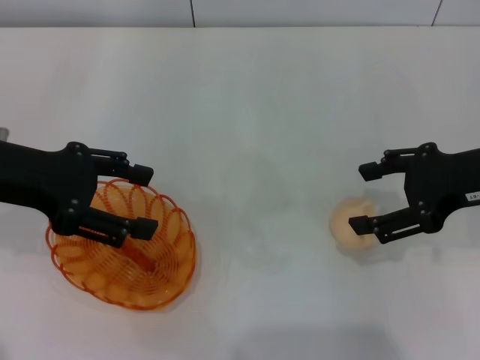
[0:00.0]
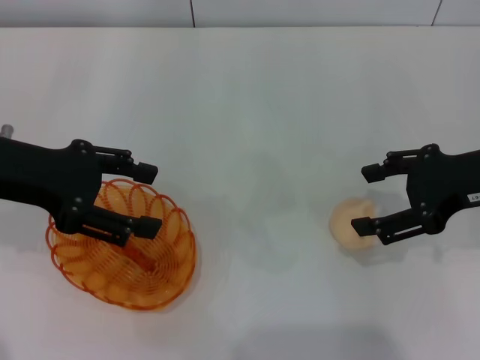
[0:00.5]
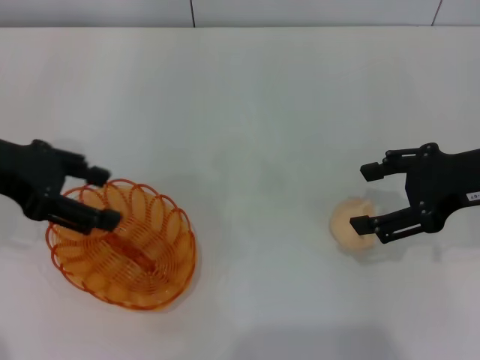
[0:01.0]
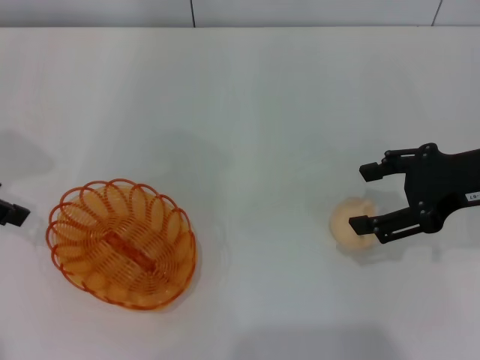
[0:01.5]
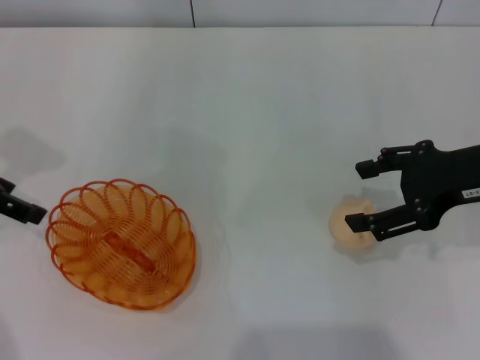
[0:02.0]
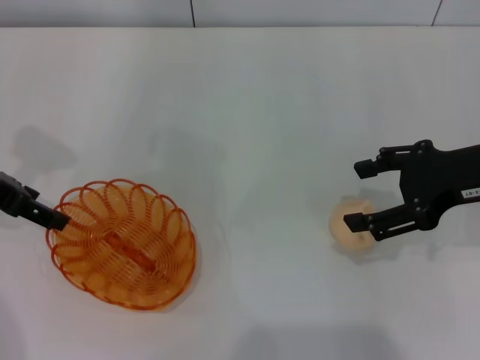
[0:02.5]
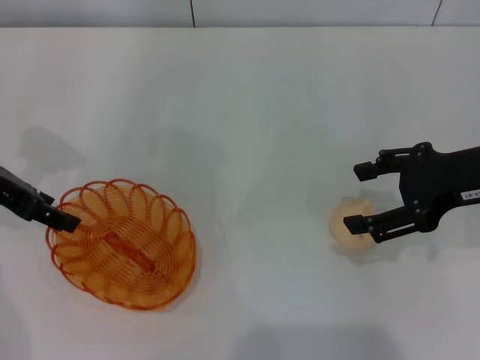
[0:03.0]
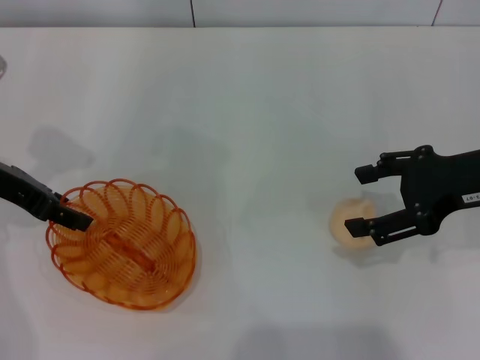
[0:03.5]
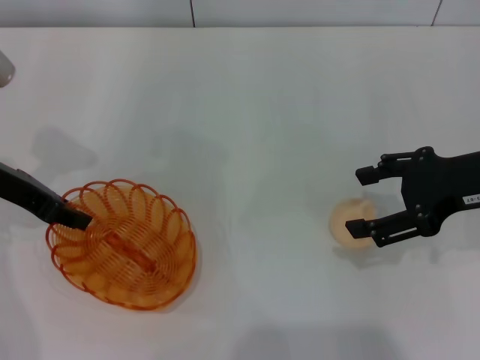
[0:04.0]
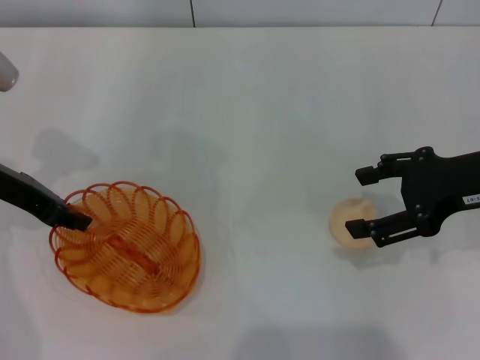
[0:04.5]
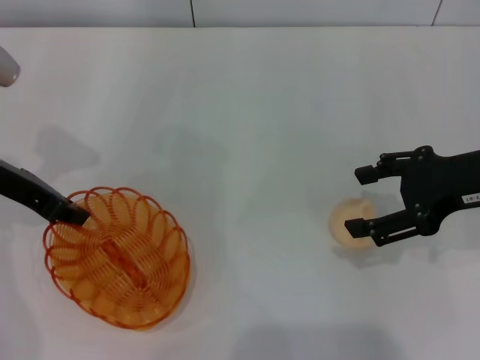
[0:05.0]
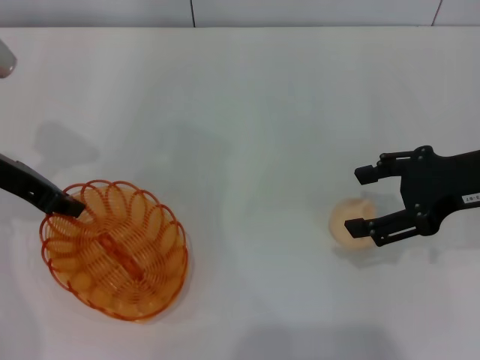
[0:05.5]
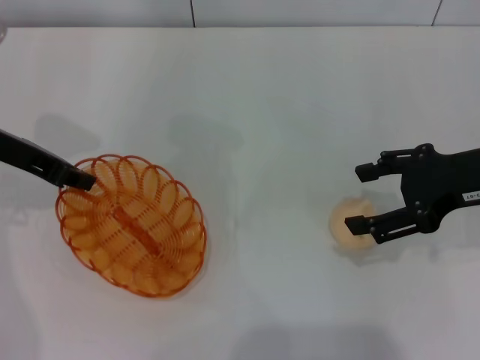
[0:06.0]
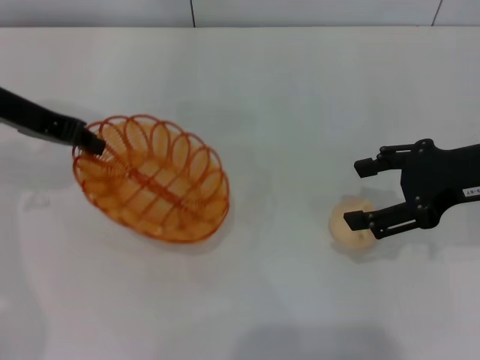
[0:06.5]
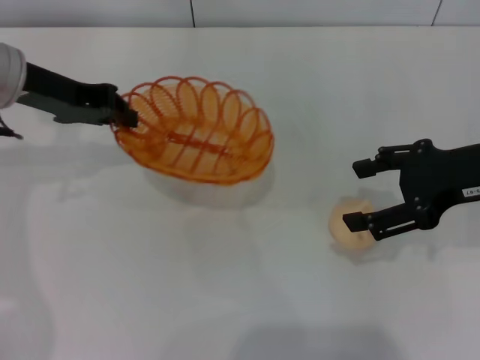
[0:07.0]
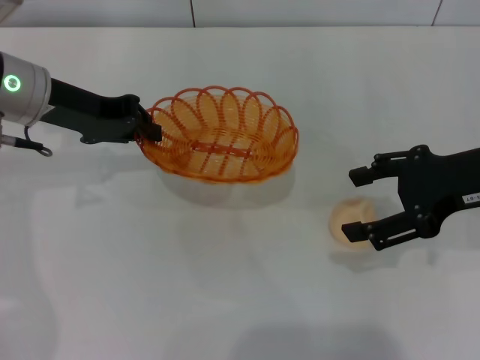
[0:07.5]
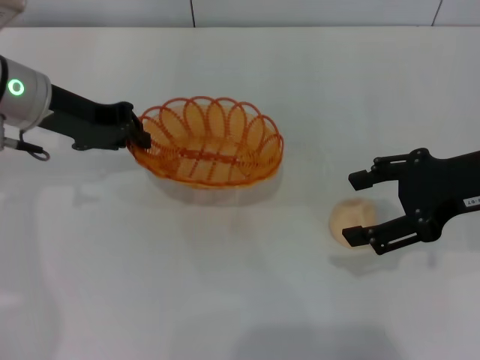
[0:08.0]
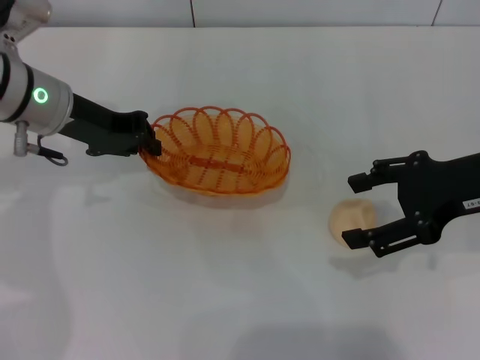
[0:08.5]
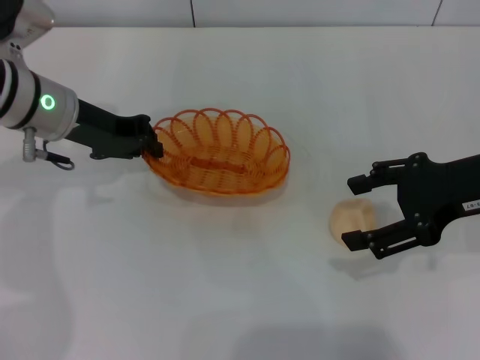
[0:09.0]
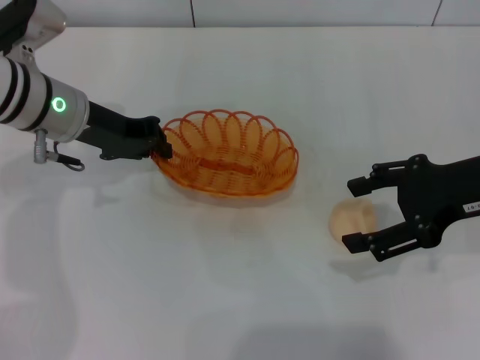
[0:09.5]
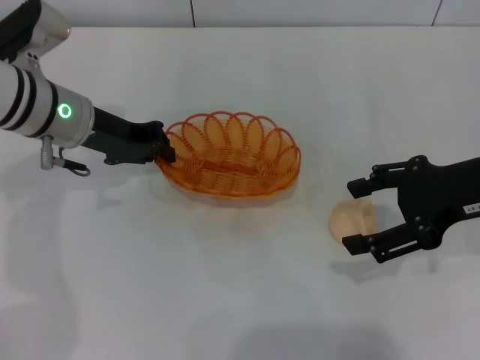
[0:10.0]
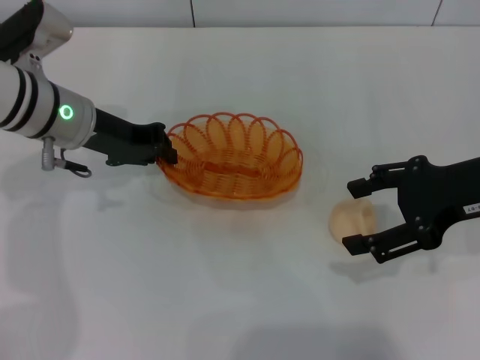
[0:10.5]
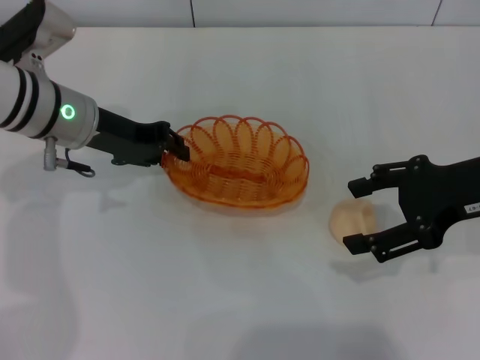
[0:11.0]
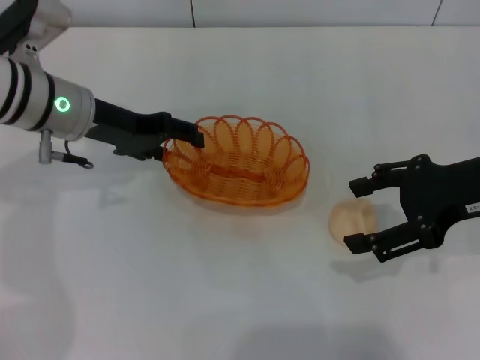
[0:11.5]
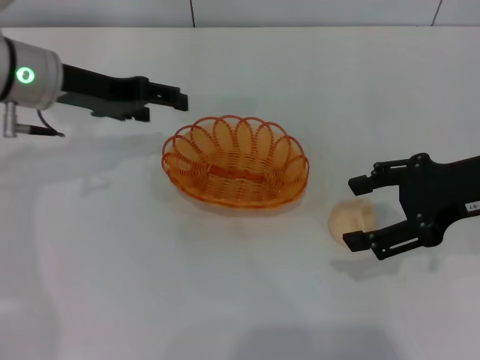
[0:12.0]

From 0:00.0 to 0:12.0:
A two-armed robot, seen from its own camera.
Step, from 0:00.0 to 0:06.5: Pick up the basket with the left gripper.
Step, from 0:07.0 to 0:11.5: Place the basket in the center of view with the left gripper.
From 0:00.0 to 0:02.0: The left gripper heads to the left, covering roughly 5 cm.
From 0:02.0 to 0:04.0: The left gripper changes place by some 5 cm, and closes.
From 0:04.0 to 0:06.0: The left gripper closes its fingers.
From 0:06.0 to 0:08.0: The left gripper ends up some 5 cm from where it was.
From 0:08.0 to 0:10.0: The grippers stay close to where they were, moving slightly.
From 0:10.0 to 0:12.0: The left gripper opens.

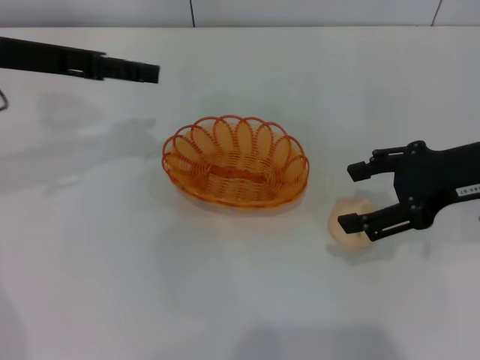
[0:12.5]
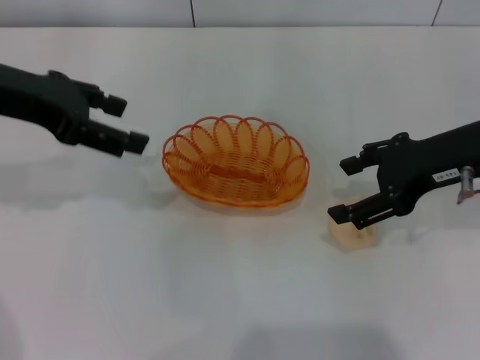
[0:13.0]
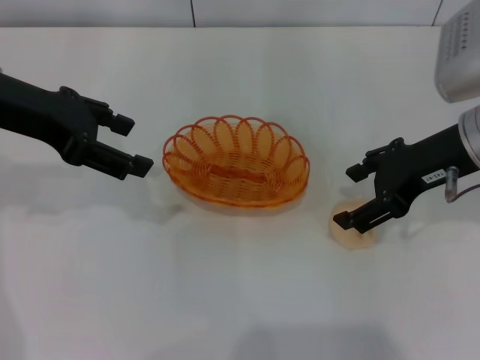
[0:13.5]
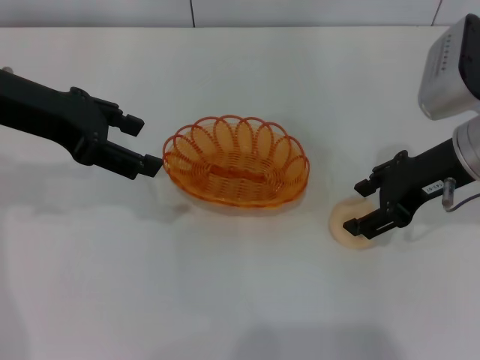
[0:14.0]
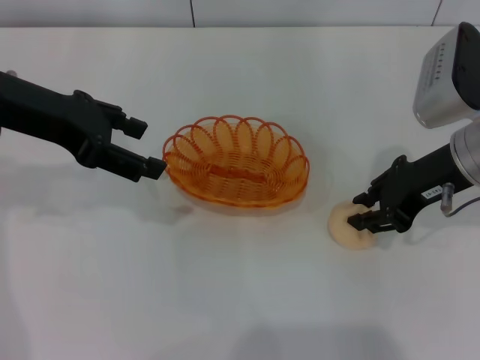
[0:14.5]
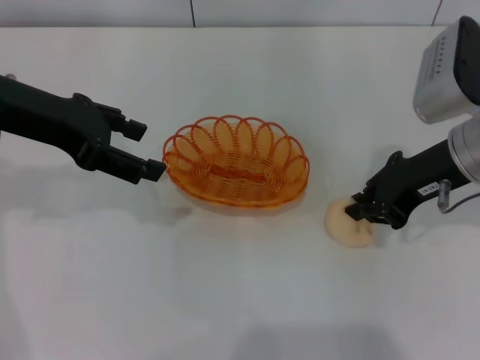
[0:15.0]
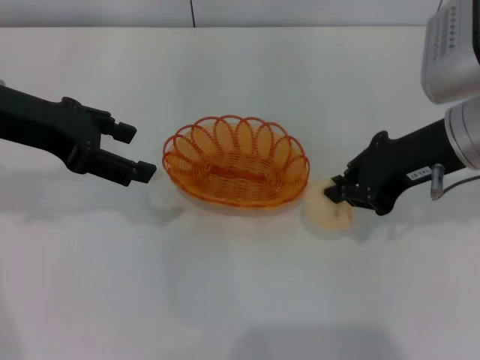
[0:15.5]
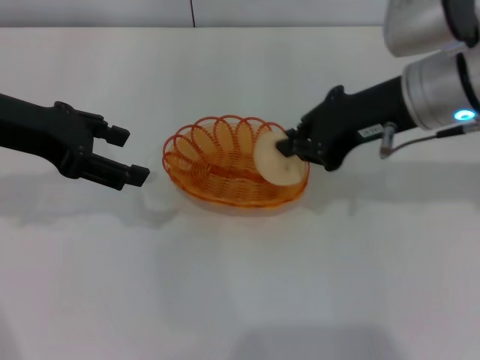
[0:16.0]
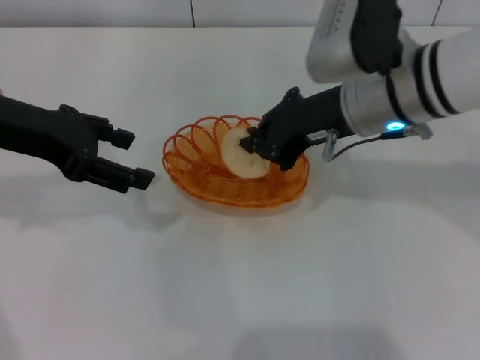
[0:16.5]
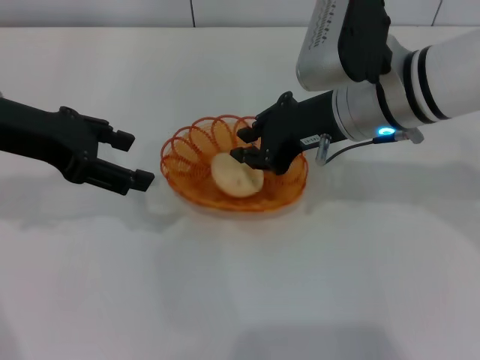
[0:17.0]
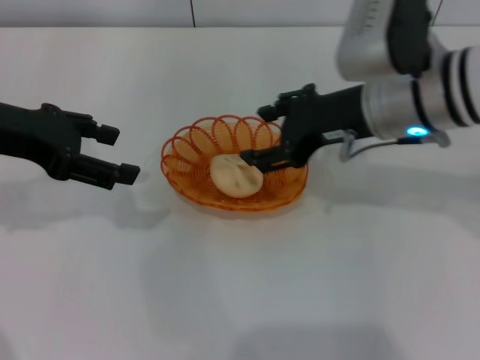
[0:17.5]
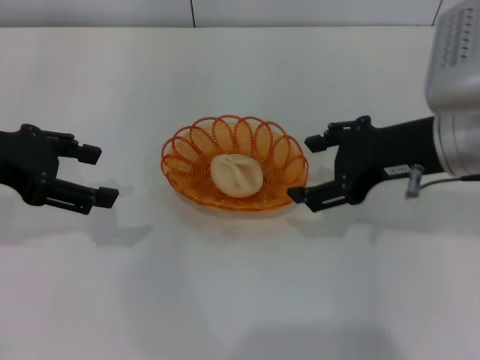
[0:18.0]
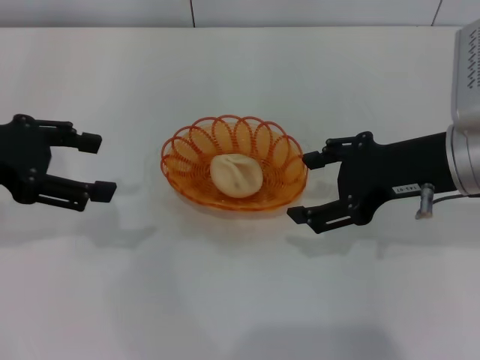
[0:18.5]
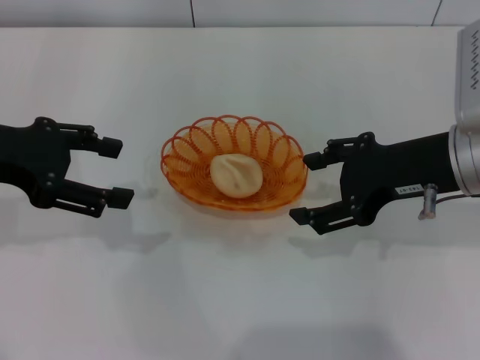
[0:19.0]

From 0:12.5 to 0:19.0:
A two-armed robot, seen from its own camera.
Step, from 0:12.5 to 0:15.5: Pick up the egg yolk pastry with the right gripper.
Step, from 0:16.0 to 0:17.5: Place the egg yolk pastry into the basket with the right gripper.
From 0:12.5 to 0:14.5: The right gripper changes place by about 5 cm, and closes its fingers.
From 0:14.5 to 0:17.0: The right gripper travels to the left by about 10 cm.
From 0:17.0 to 0:19.0: The right gripper shifts roughly 10 cm to the right and backward, and opens.

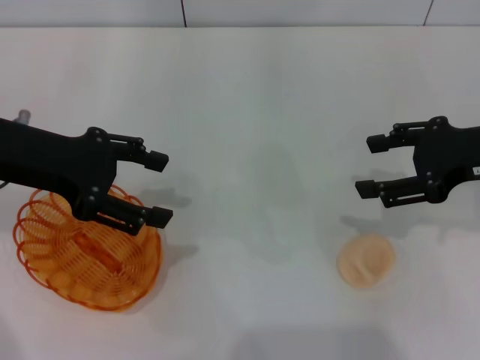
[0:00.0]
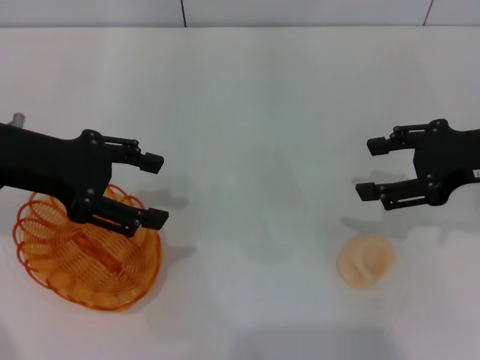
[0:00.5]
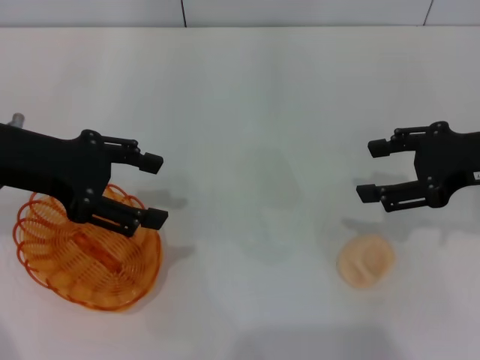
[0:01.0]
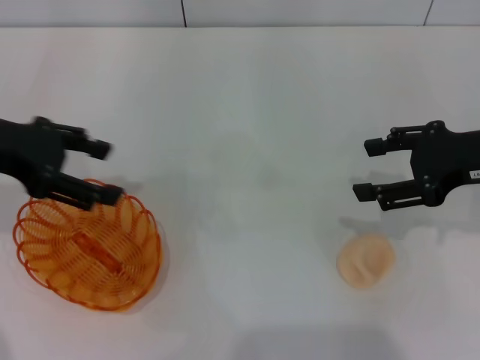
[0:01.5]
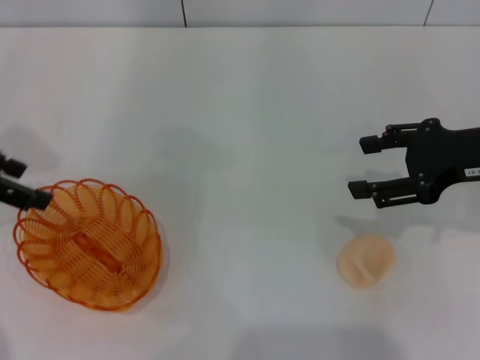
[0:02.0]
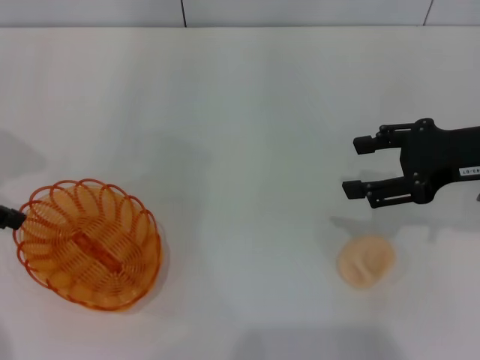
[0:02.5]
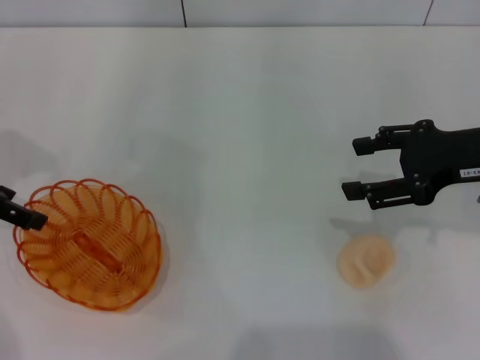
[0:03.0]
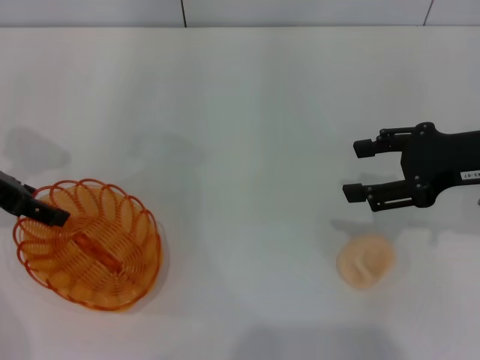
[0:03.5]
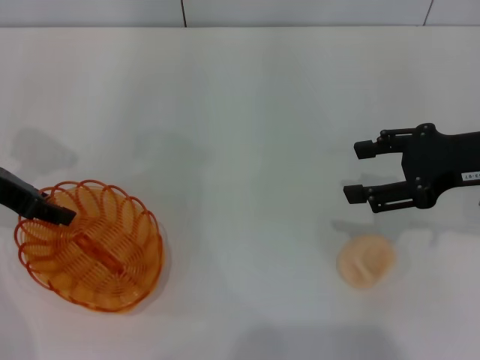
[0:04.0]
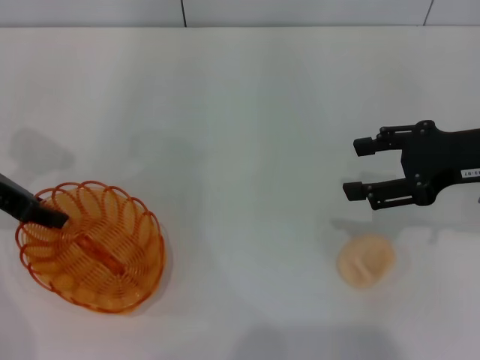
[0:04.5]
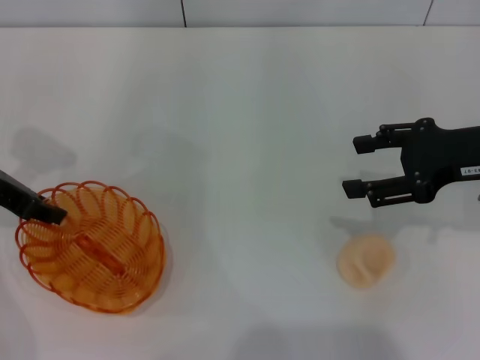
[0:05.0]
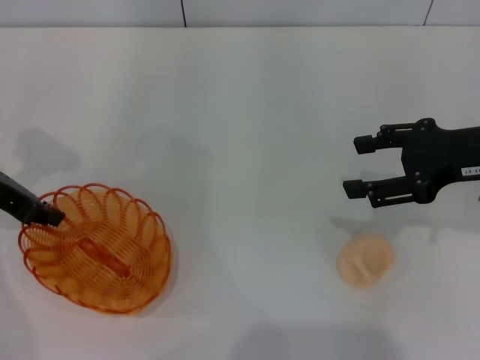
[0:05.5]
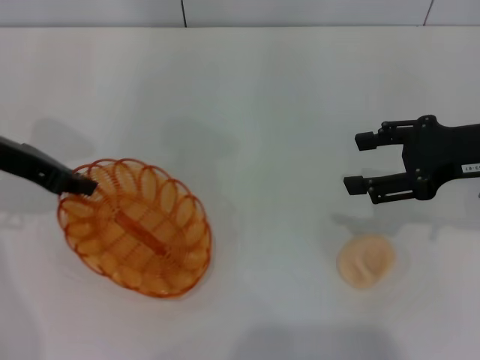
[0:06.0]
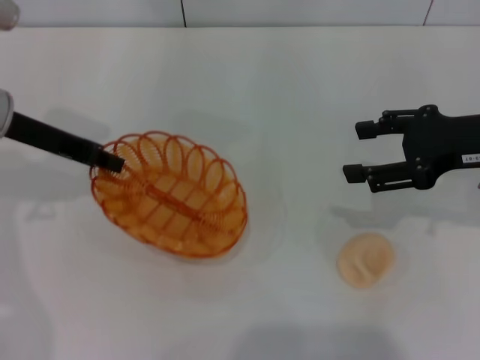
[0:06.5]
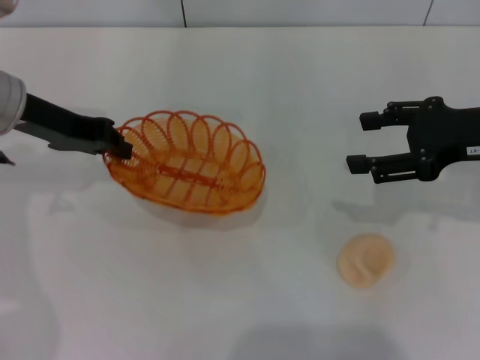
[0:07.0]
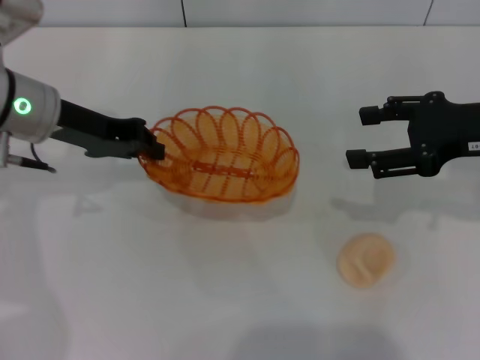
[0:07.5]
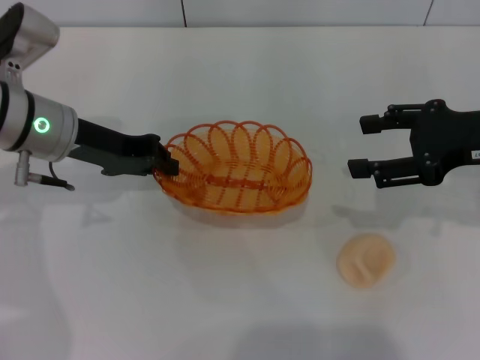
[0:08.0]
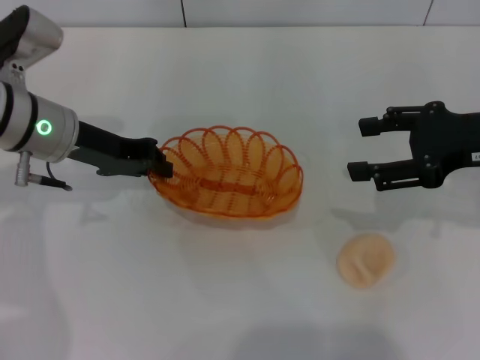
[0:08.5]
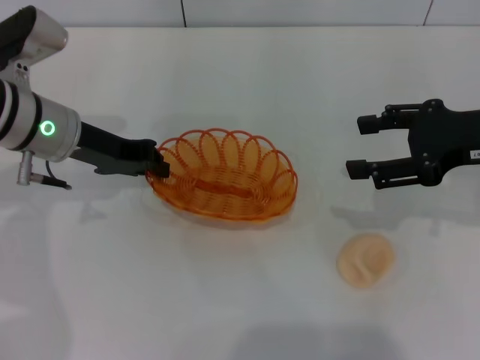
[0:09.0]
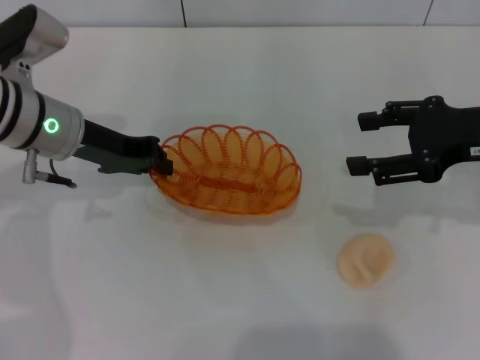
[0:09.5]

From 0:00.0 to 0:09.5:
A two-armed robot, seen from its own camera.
Step, from 0:00.0 to 0:06.0: Pick up the basket with the left gripper.
From 0:00.0 to 0:02.0: The left gripper goes roughly 5 cm to the left.
From 0:02.0 to 0:04.0: The left gripper moves downward, roughly 5 cm, and closes.
From 0:04.0 to 0:05.5: The left gripper closes its fingers.
From 0:05.5 to 0:07.5: The left gripper moves to the right, about 10 cm.
From 0:07.5 to 0:09.5: The grippers move only a little.
